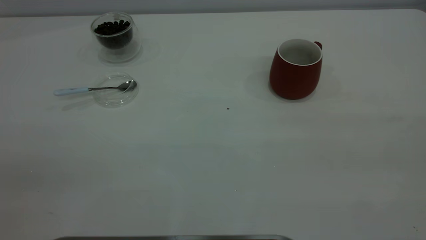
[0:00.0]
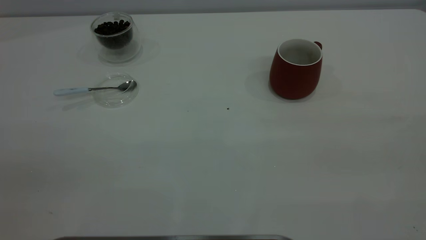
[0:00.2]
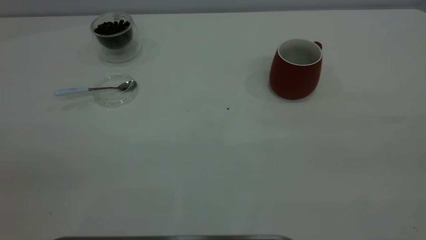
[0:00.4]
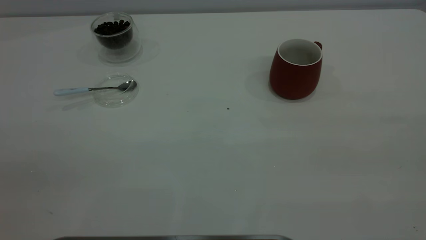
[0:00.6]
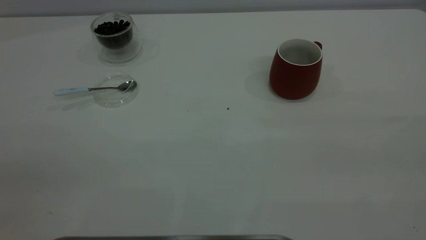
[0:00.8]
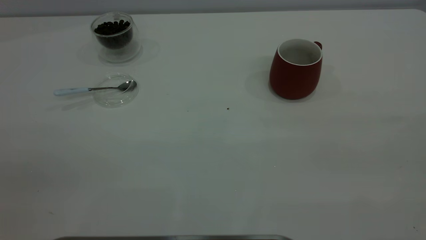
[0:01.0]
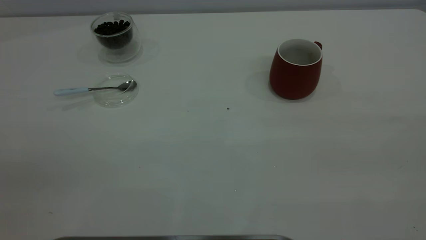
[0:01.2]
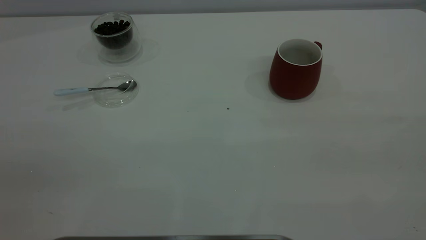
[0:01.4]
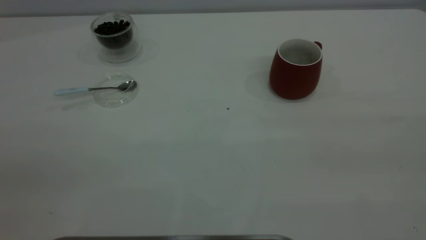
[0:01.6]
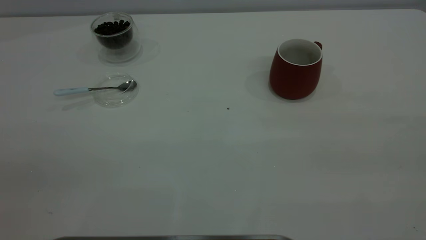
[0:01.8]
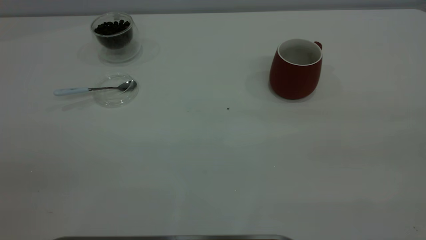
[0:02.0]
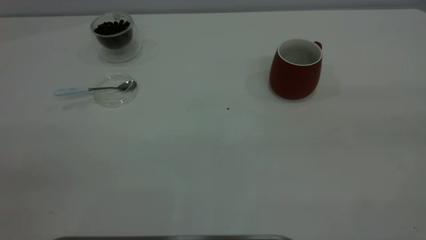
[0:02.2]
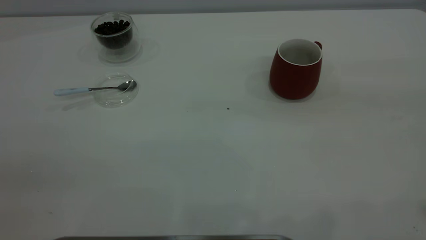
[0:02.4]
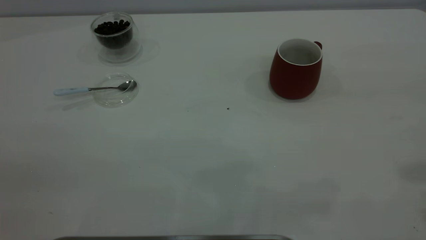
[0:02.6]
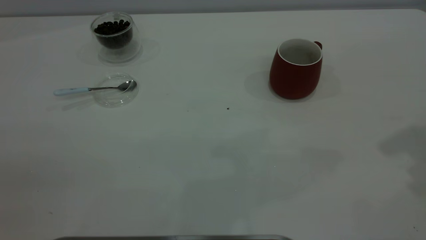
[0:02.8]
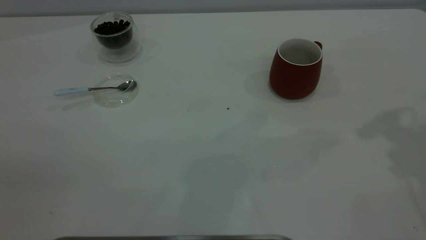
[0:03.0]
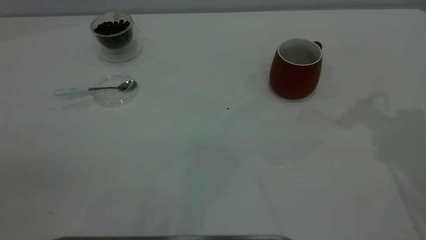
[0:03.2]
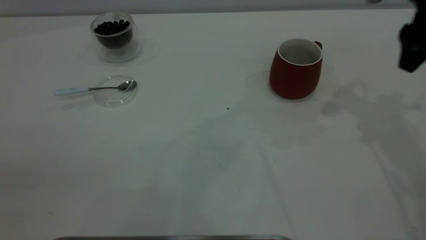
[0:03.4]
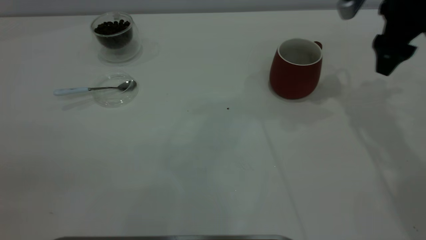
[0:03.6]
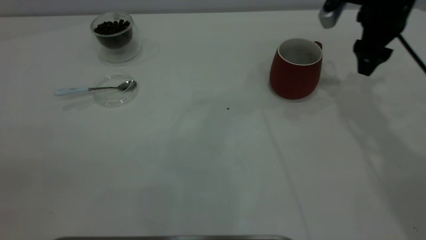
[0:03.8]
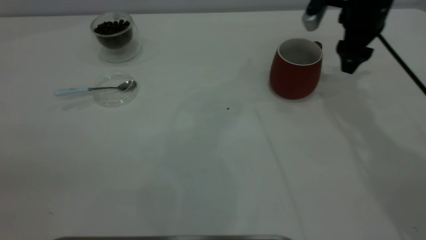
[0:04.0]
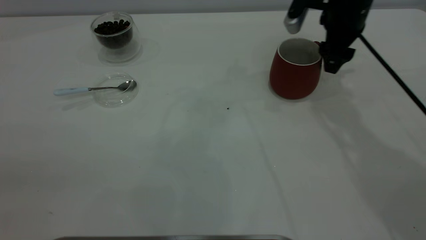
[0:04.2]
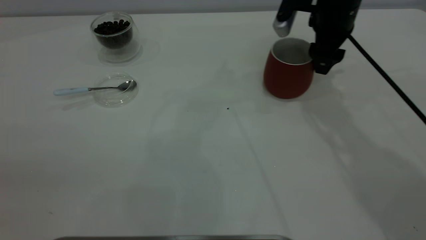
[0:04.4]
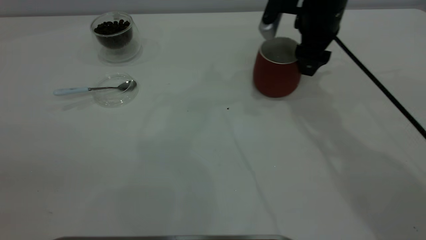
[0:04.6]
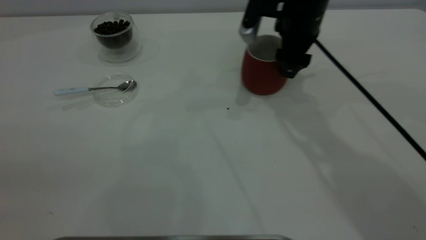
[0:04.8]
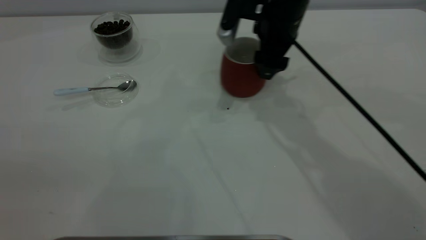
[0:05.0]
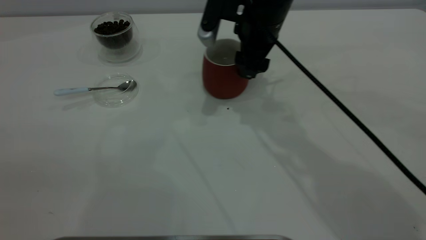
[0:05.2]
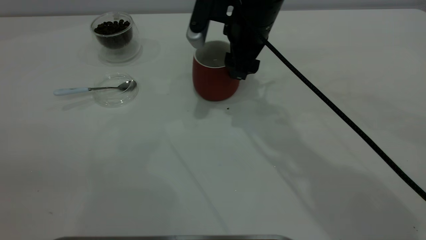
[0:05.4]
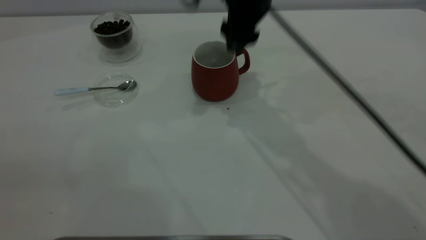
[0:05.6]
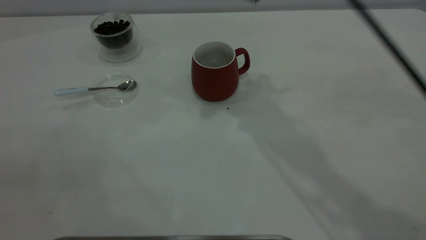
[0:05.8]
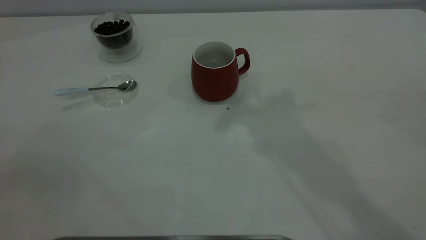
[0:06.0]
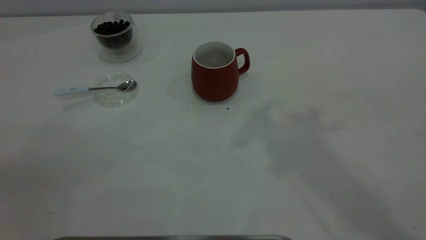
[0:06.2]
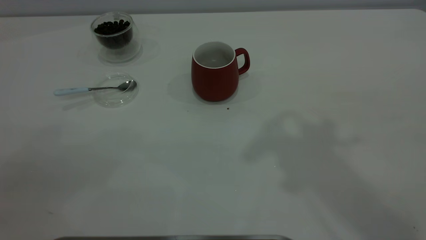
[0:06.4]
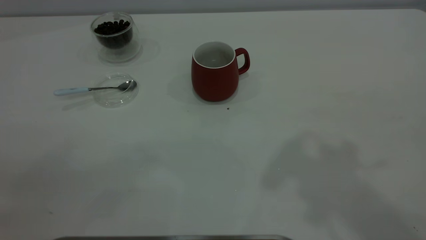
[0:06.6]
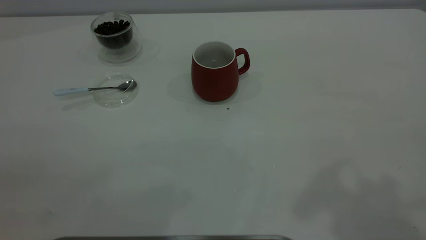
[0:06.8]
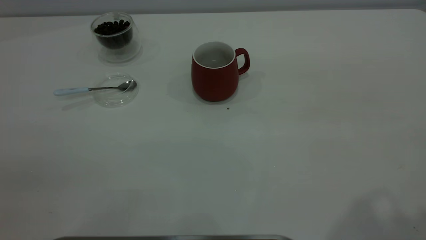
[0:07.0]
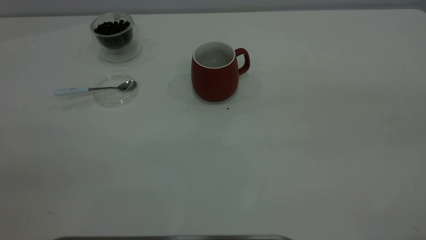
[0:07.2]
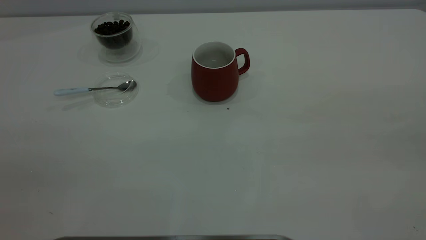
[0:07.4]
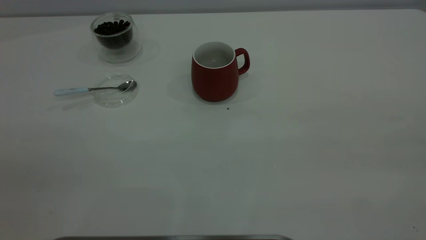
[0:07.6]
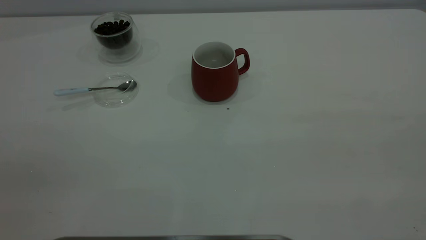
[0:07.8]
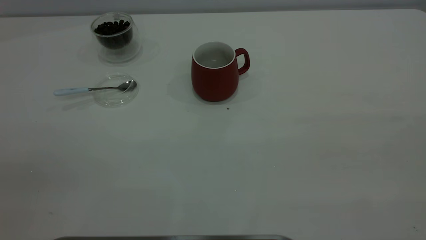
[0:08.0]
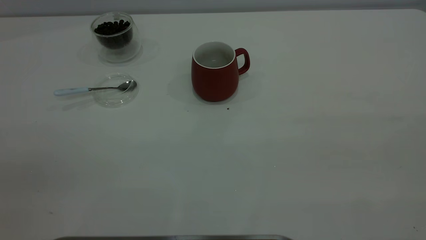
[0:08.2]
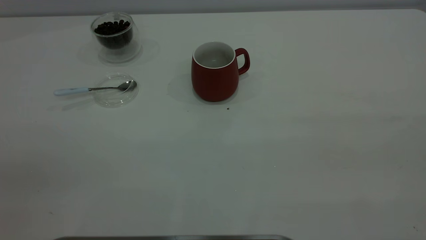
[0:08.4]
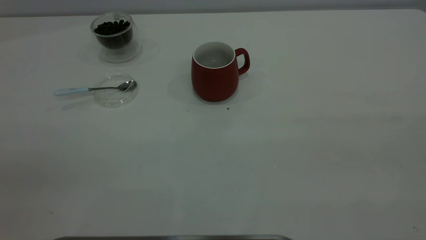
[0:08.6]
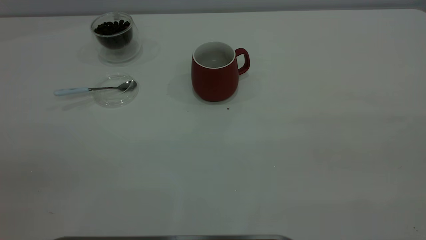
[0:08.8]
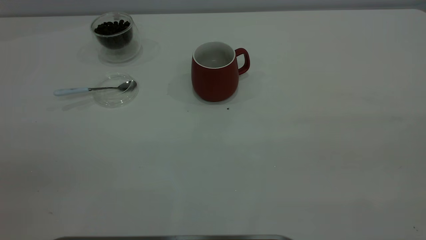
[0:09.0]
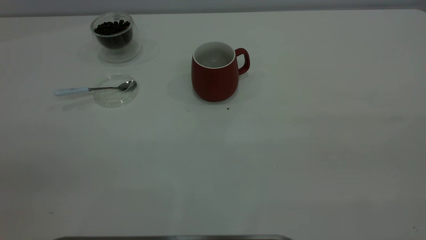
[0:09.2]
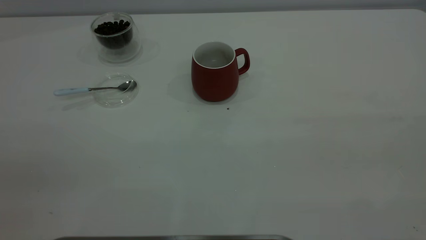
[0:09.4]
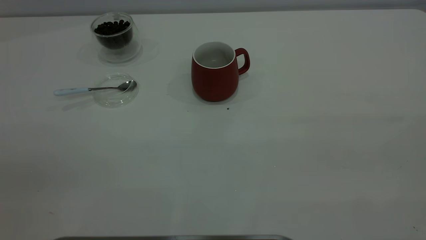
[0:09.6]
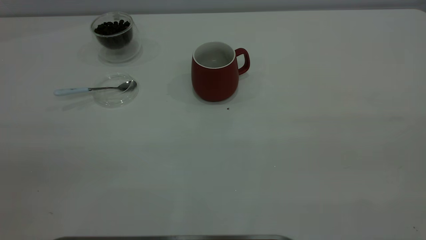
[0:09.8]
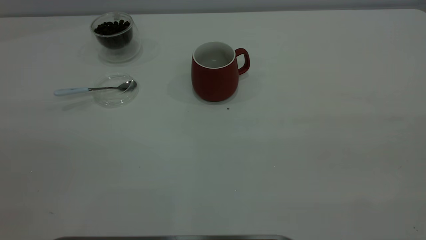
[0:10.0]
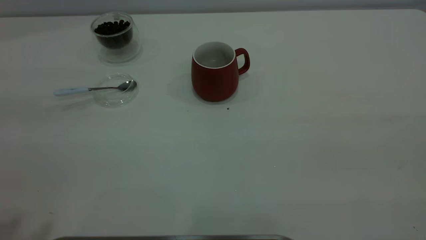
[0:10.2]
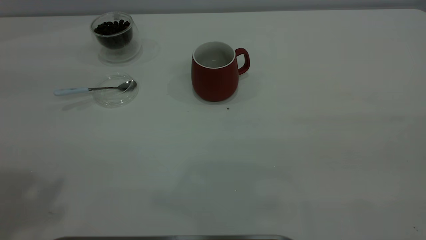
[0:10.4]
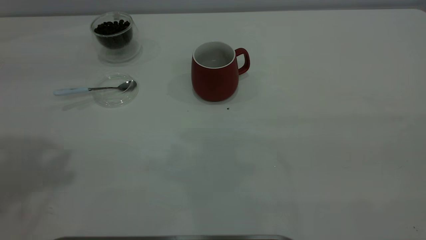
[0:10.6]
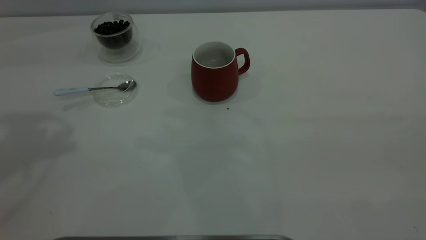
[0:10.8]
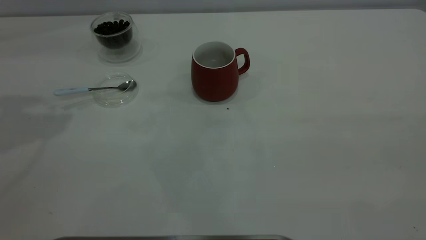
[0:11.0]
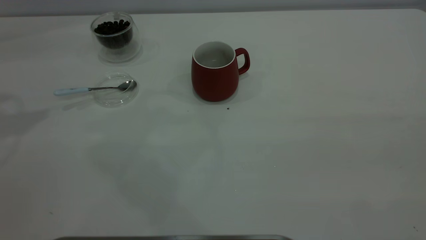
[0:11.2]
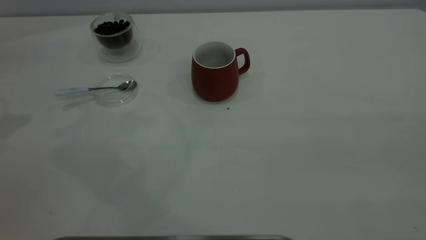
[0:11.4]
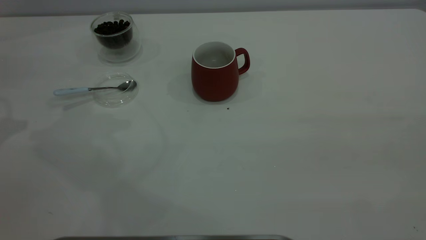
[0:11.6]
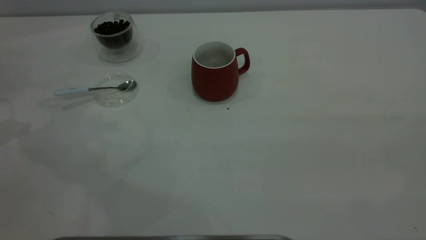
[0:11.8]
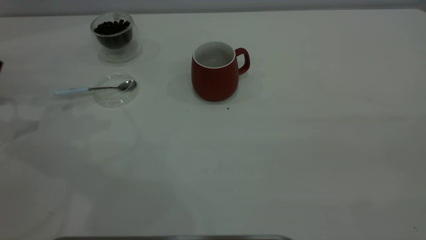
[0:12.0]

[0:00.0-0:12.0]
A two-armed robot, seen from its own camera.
Task of the whole recording: the right gripper place the red cup in the center of the table, the left gripper take the blue spoon from the cup lid and scoop out the coffee beans from the coffee cup and put them into the red cup, the left gripper put the spoon back into the cup lid.
Step, 0:00.0 to 0:05.4: Move the cup to the center of view.
0:00.0 to 0:01.6: Neither gripper changes place.
0:03.0 to 0:04.4: The right gripper shifts about 25 cm downward, forward and to the left, and closes its fingers.
0:04.4 to 0:06.0: The right gripper heads upward and backward, covering some 30 cm.

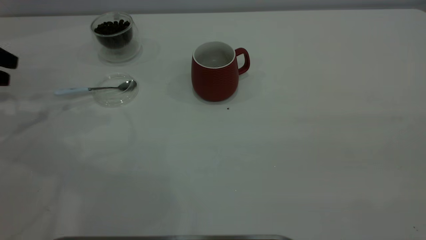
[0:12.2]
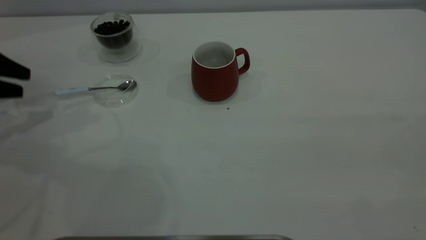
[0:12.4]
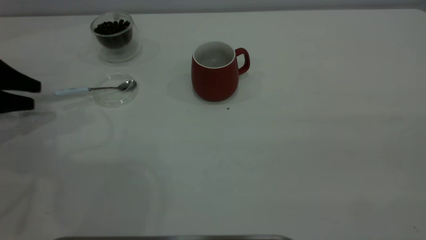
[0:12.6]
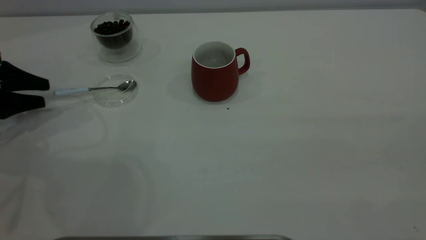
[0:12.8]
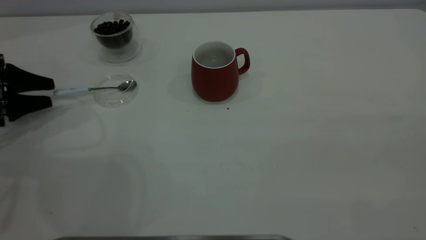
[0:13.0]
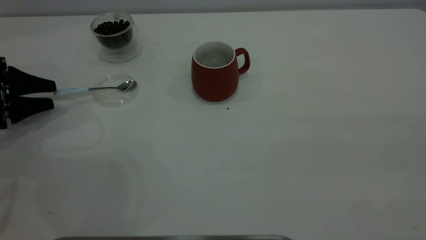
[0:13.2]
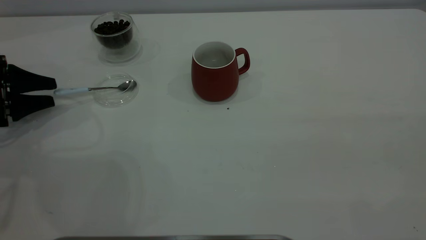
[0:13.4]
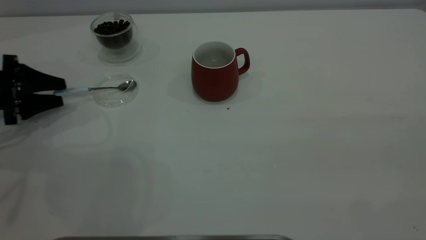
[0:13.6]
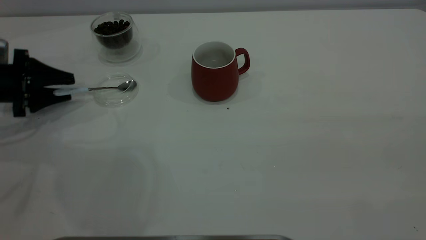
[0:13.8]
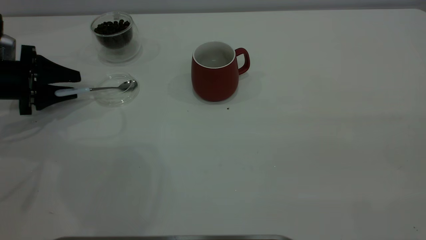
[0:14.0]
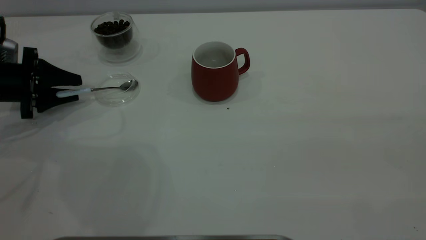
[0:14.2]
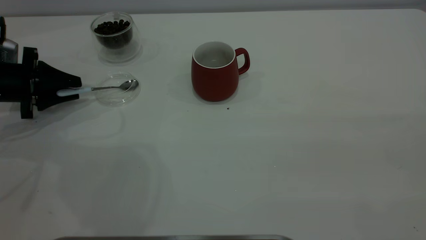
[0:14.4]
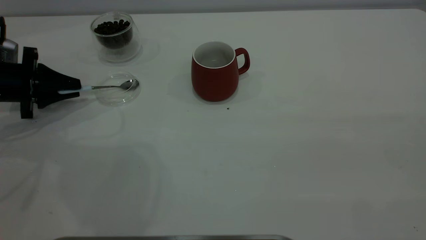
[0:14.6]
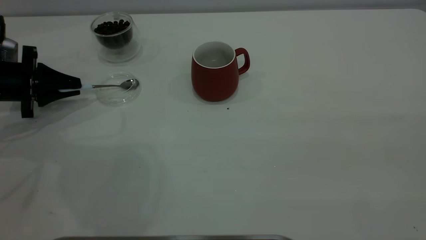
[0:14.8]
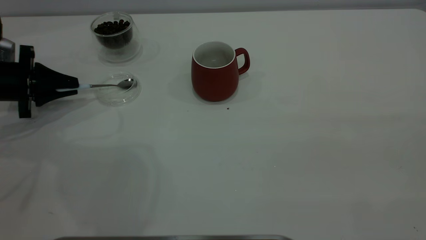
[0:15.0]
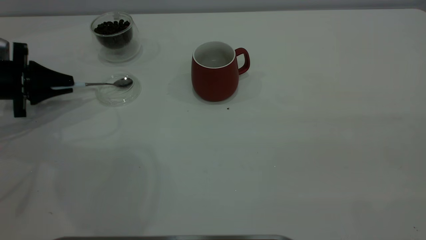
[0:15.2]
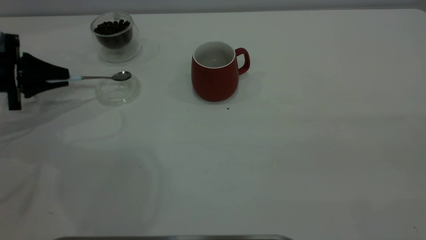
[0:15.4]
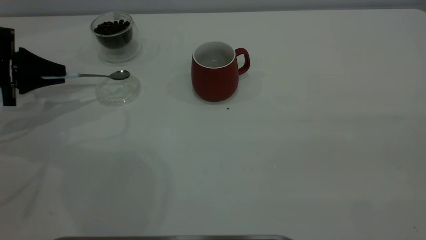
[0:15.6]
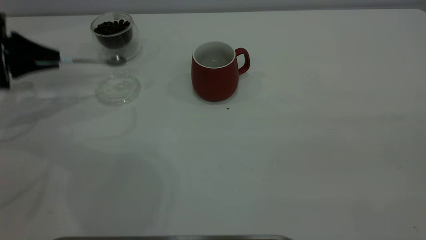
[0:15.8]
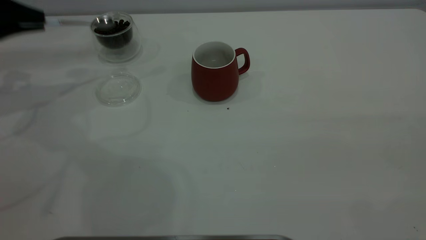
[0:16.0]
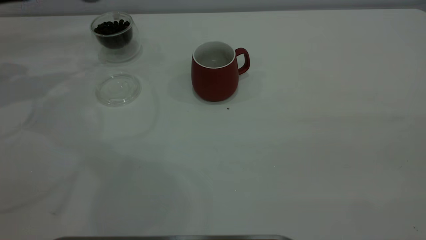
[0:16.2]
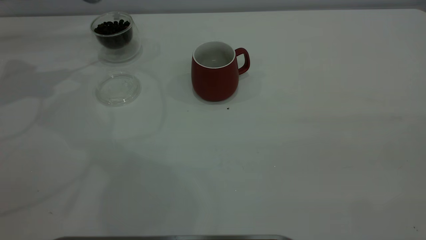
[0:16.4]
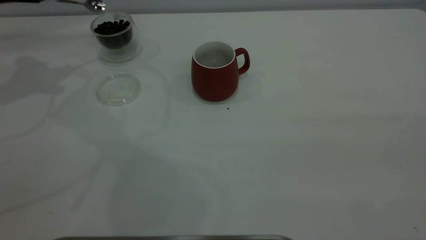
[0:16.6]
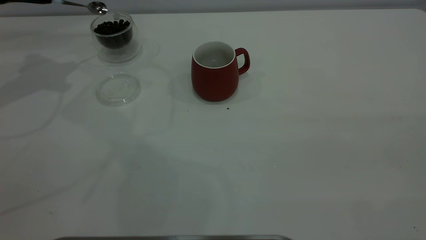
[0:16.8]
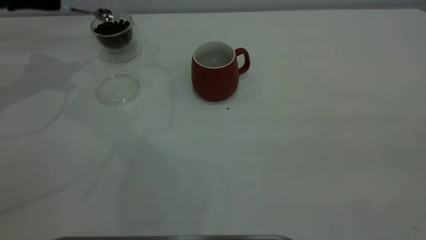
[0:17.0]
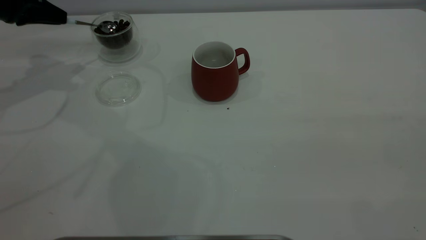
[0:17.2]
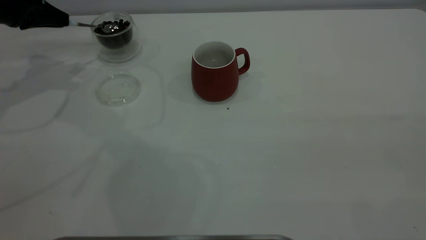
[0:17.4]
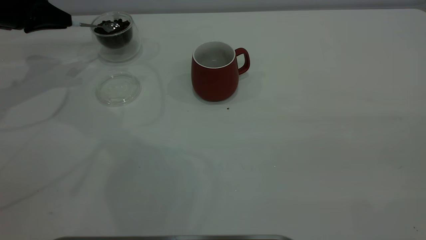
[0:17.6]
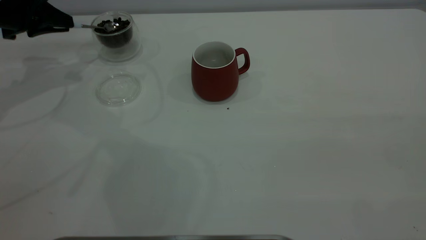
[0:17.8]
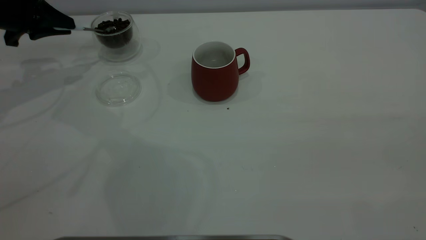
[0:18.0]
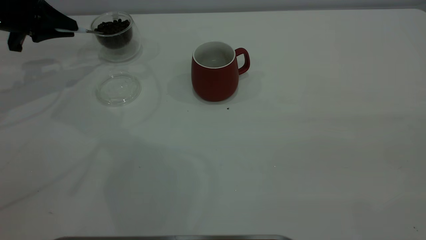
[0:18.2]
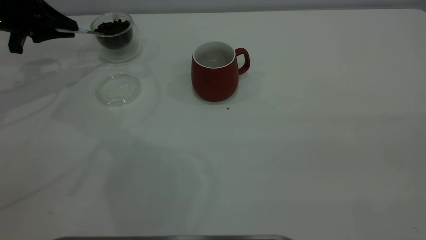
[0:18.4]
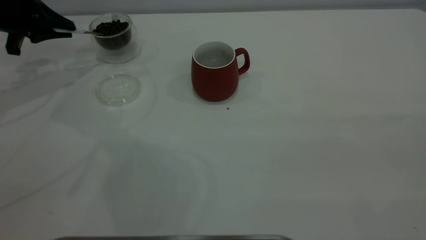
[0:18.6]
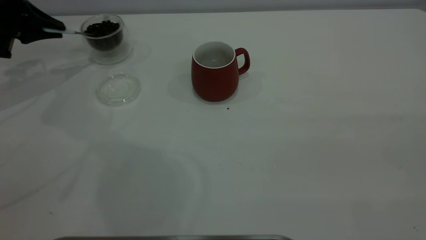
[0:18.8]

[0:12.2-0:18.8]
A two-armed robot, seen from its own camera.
Task of the whole recording: the right gripper place the red cup in the center of the table, the left gripper take the blue spoon from the cup lid and scoop out the coffee beans from the coffee cup and put them into the red cup, the left gripper put the spoon back into the cup lid.
Step, 0:12.2 to 0:15.8: Pick up the spoon.
0:12.2 to 0:13.8: The left gripper shifts about 10 cm downward.
0:13.8 to 0:15.4: The left gripper closes up.
0:15.4 to 0:17.2: The left gripper shifts roughly 10 cm upward and forward.
